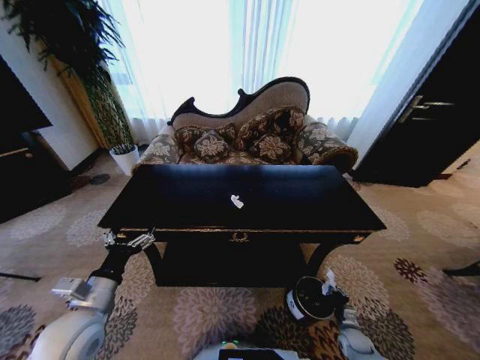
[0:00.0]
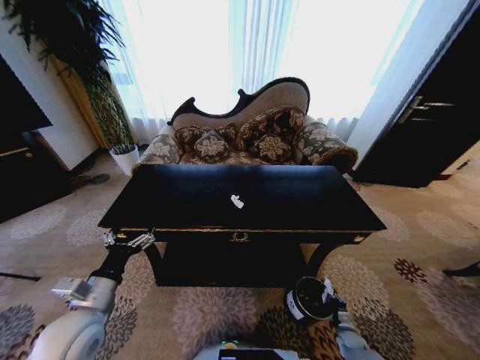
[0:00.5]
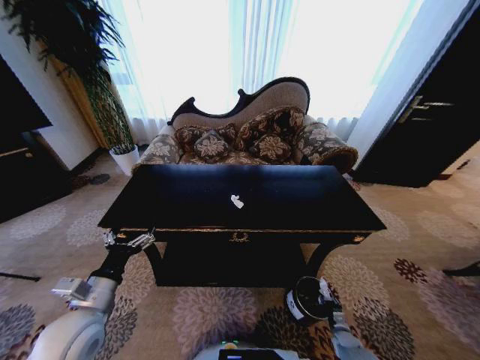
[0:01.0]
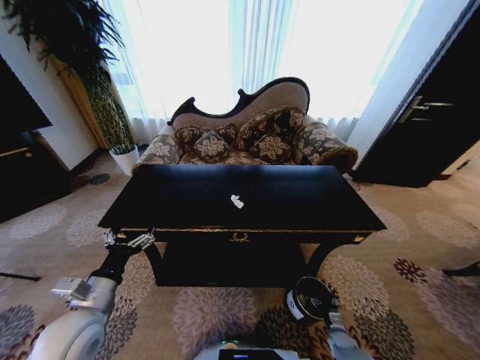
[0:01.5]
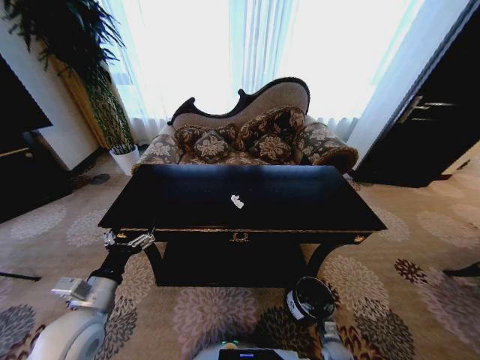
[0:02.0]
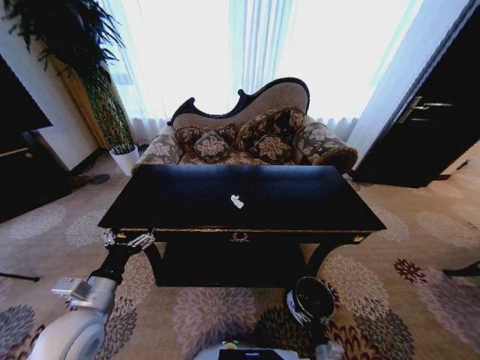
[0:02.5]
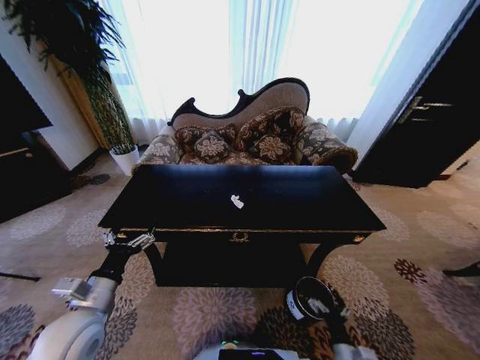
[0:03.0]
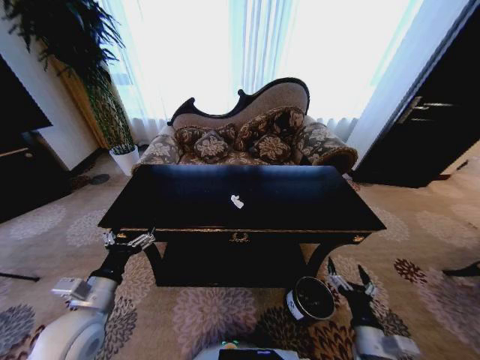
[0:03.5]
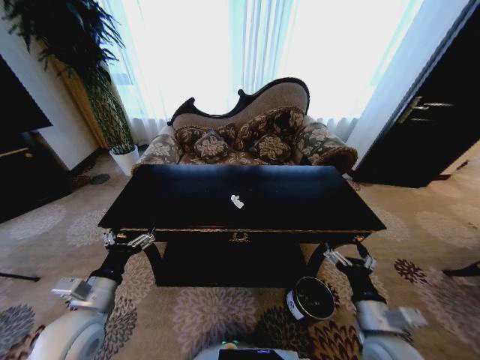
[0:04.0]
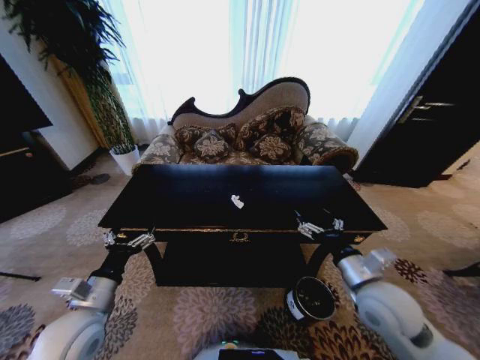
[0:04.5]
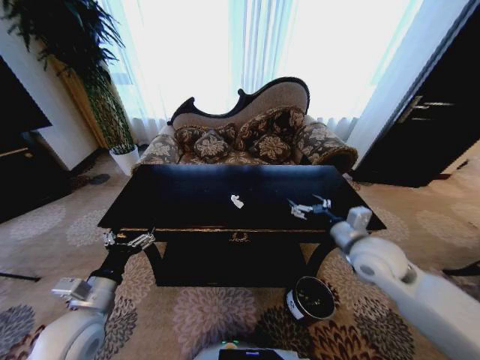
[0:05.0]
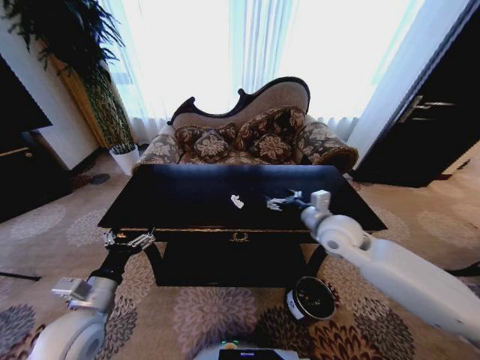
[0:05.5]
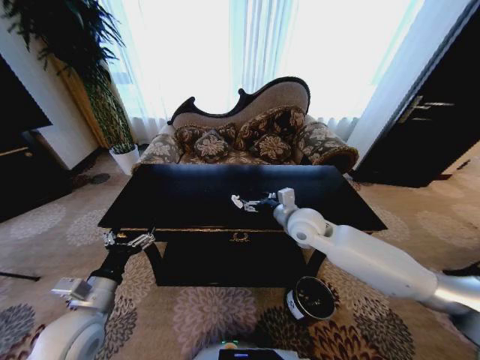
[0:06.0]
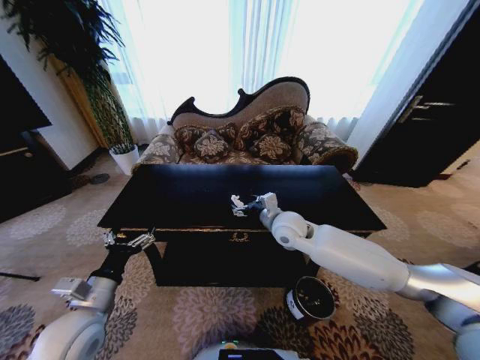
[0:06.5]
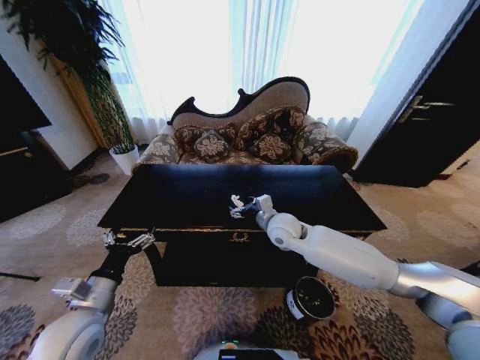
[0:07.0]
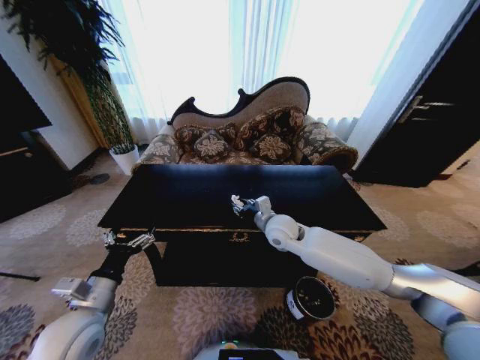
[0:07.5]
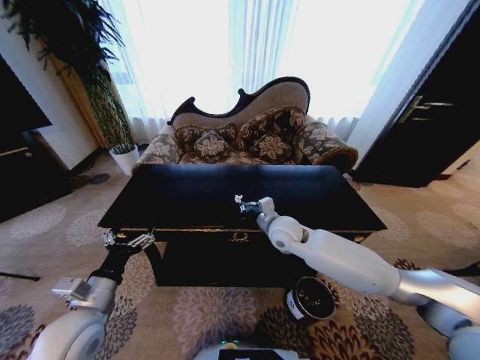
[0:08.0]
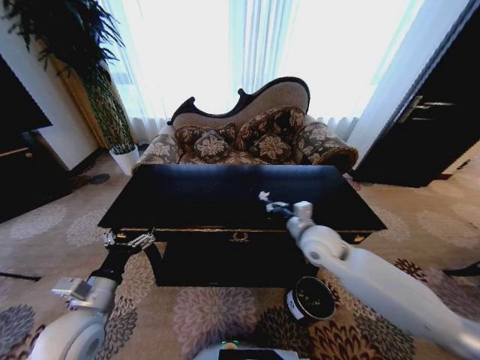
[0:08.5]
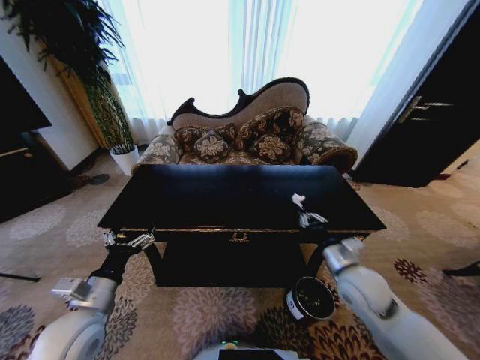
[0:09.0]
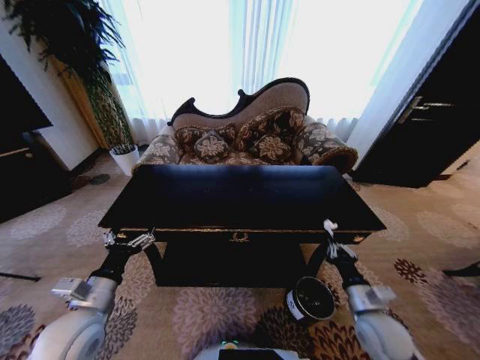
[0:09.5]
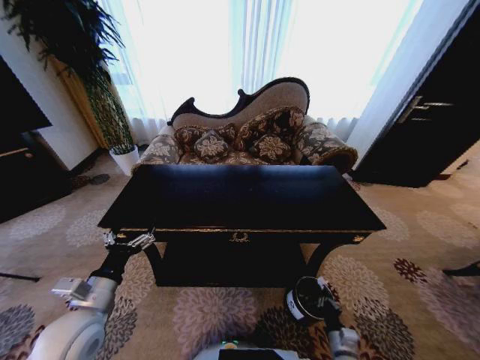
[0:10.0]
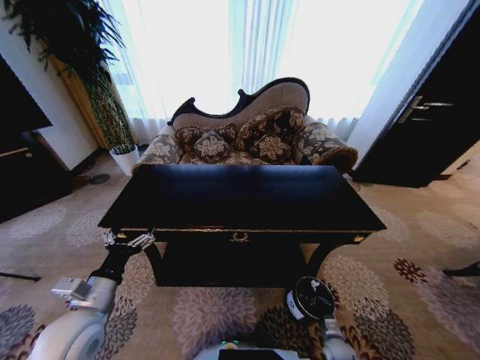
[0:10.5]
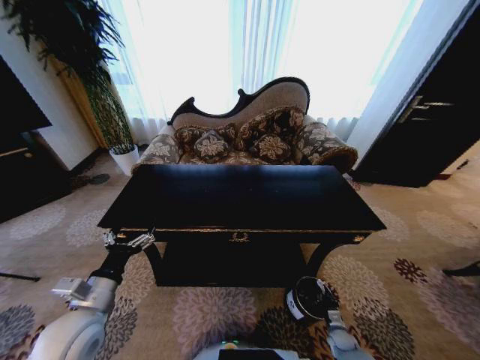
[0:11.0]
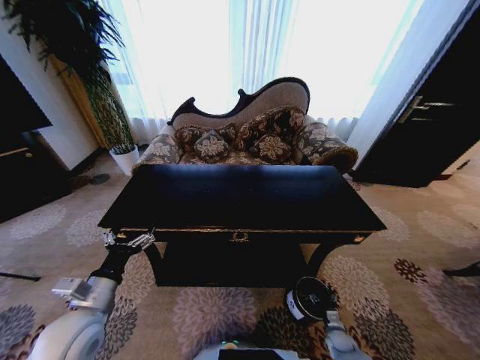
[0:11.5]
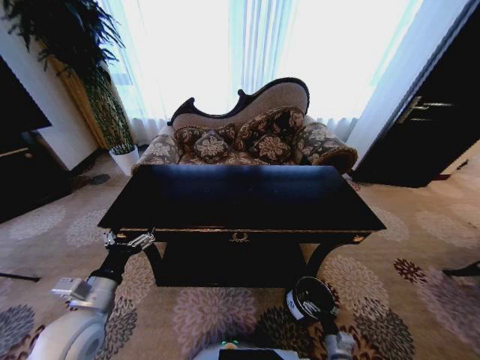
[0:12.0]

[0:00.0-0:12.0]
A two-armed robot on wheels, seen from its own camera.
Task of the whole recording: Move to the front of the table and place the trash on the table into the trash bin.
0:00.0 to 0:02.0: The right gripper is displaced downward and to the left by some 10 cm, and opens.
0:02.0 to 0:04.0: The right gripper travels upward by roughly 35 cm.
0:04.0 to 0:06.0: The right gripper heads forward, to the left and upward, covering approximately 30 cm.
0:06.0 to 0:08.0: The right gripper ends up about 5 cm from where it was, and closes.
0:08.0 to 0:10.0: The right gripper moves downward, backward and to the right, about 50 cm.

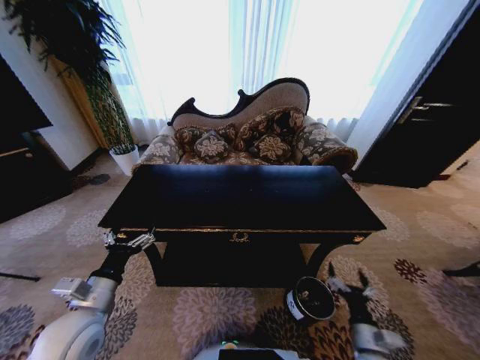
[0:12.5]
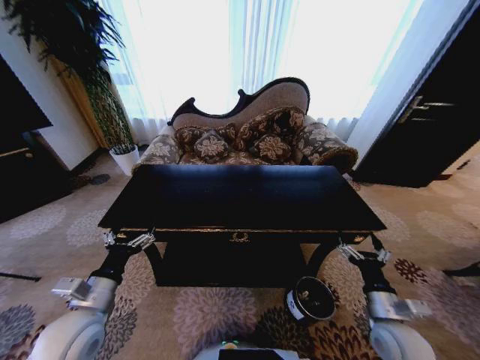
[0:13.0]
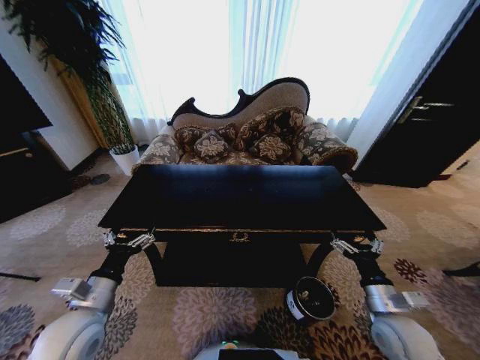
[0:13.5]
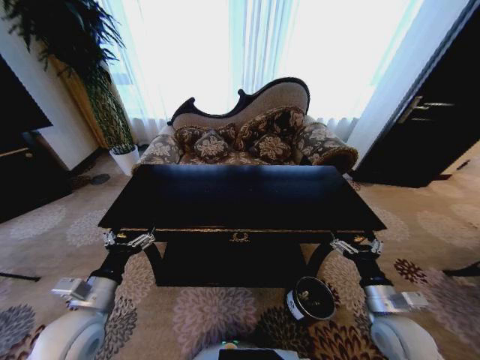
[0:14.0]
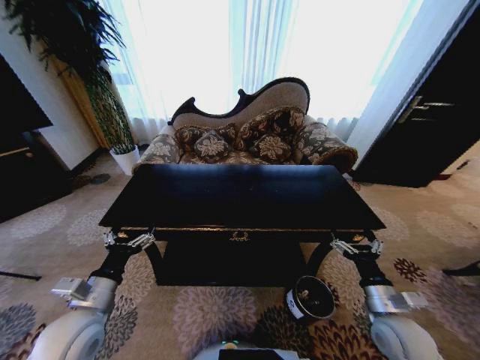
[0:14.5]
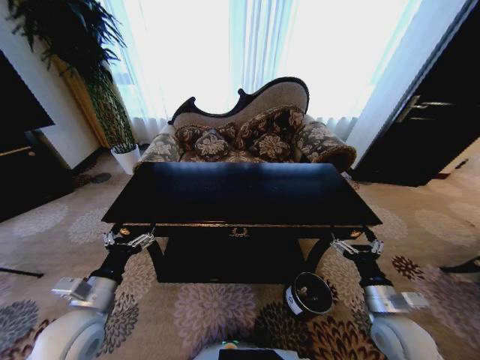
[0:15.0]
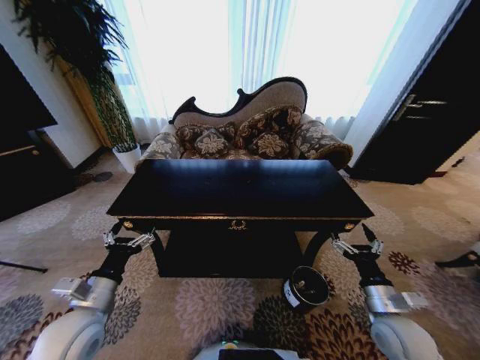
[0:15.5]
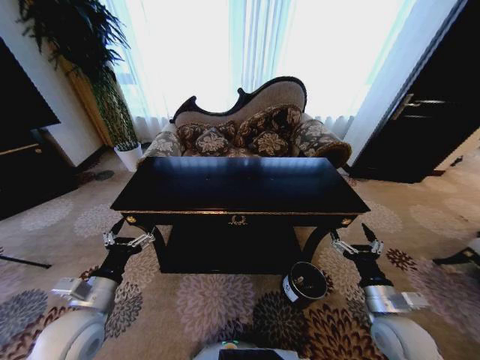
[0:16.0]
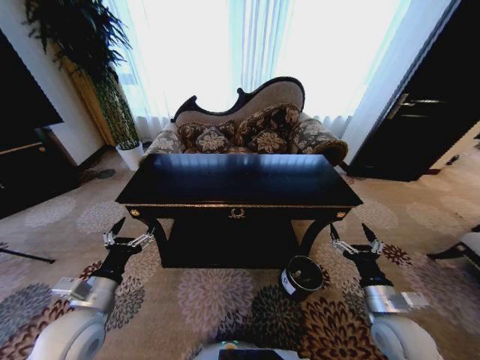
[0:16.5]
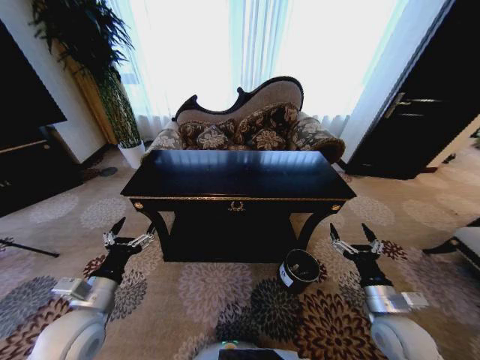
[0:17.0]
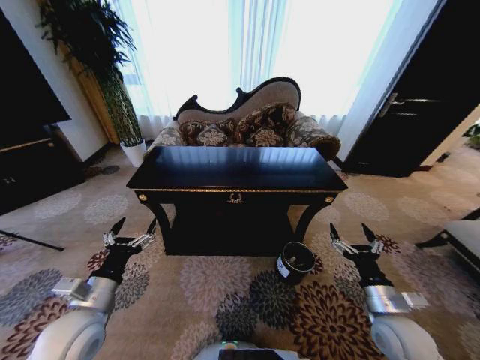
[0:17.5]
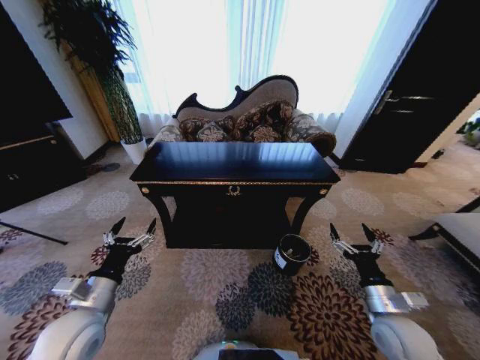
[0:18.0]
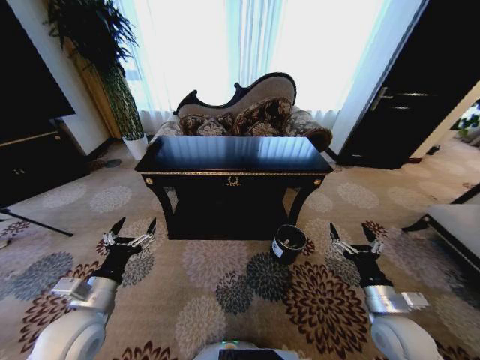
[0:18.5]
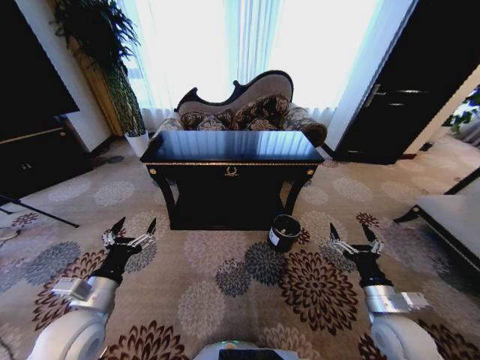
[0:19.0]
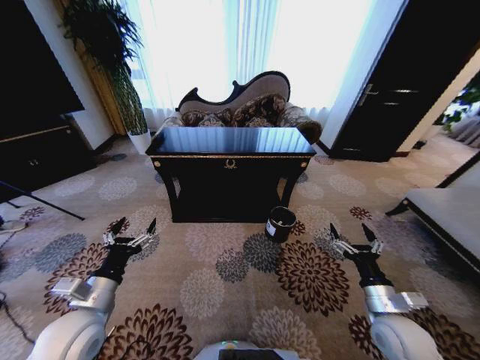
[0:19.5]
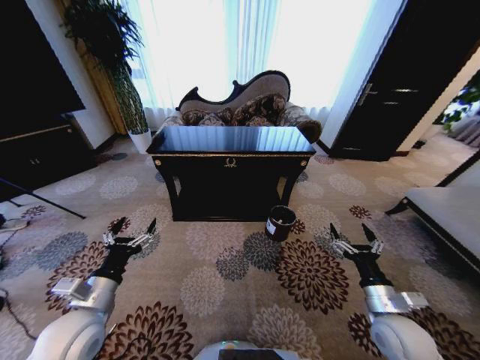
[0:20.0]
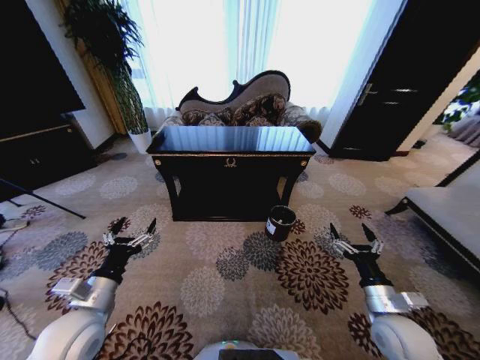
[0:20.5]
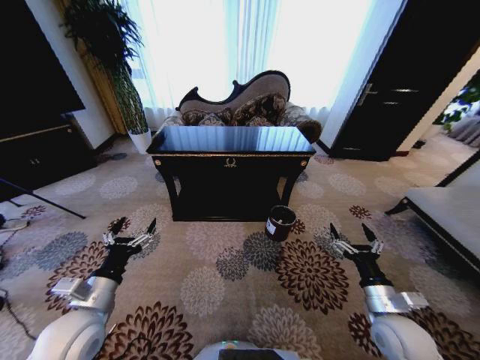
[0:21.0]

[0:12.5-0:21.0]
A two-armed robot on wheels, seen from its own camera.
Task of the whole recording: Move to the front of the table and place the trash on the table into the trash bin.
0:12.5 to 0:14.5: The right gripper heads upward and forward, covering some 15 cm.

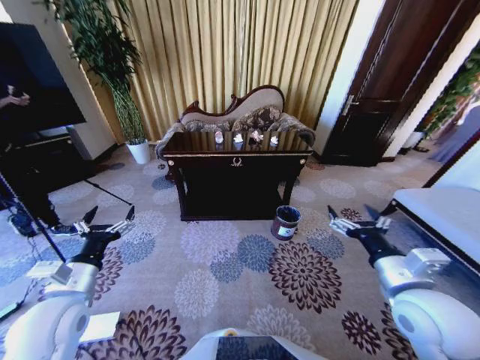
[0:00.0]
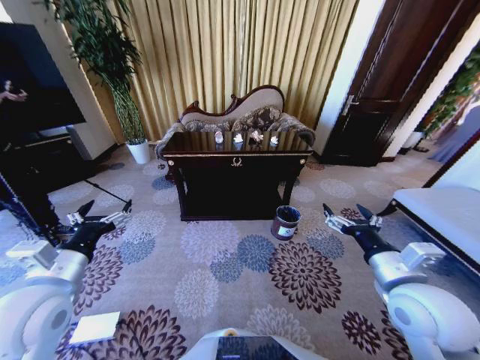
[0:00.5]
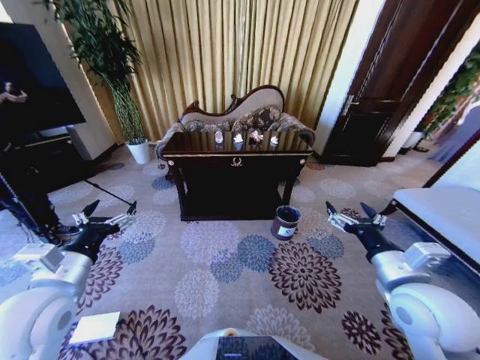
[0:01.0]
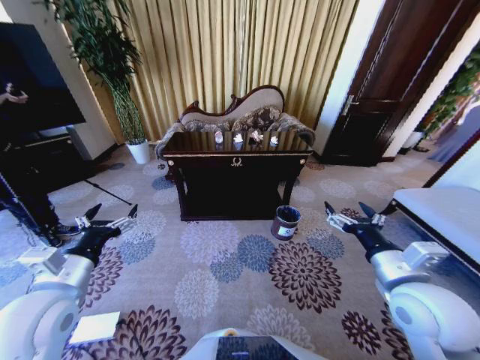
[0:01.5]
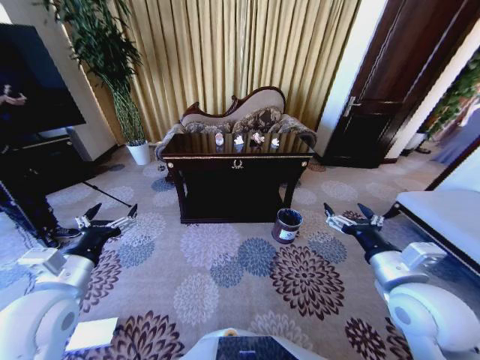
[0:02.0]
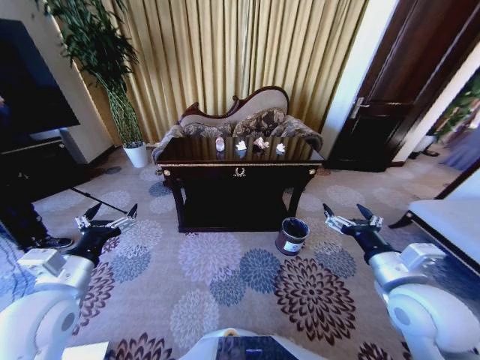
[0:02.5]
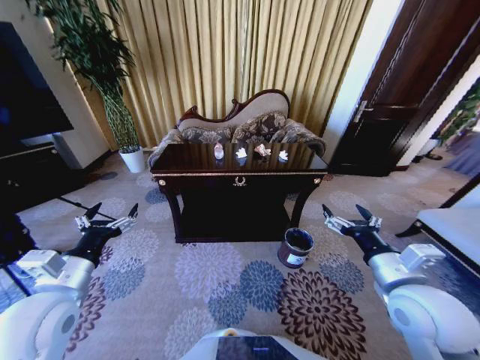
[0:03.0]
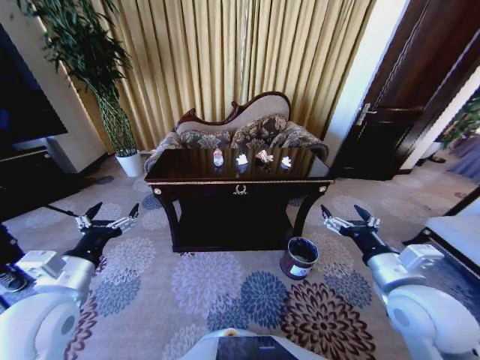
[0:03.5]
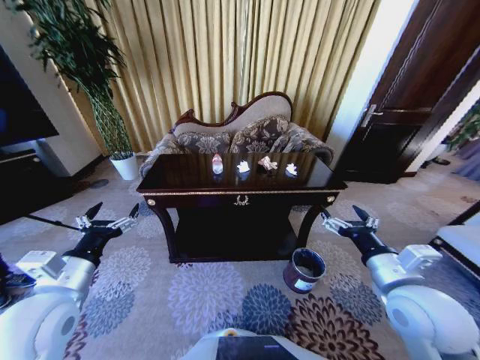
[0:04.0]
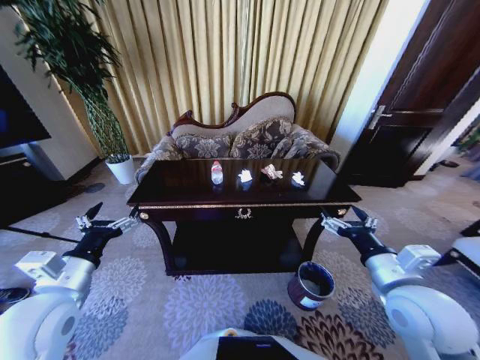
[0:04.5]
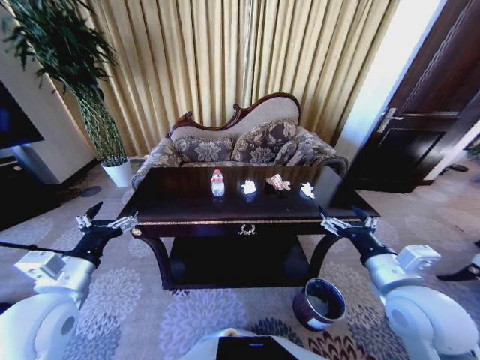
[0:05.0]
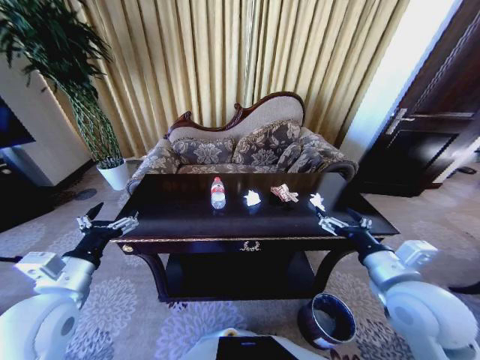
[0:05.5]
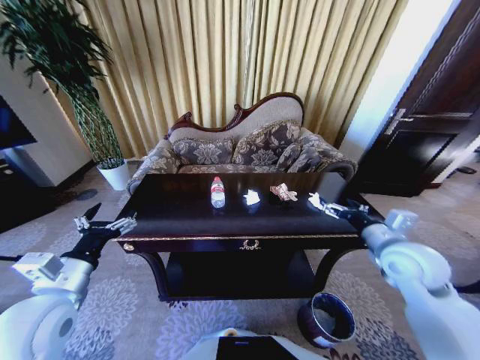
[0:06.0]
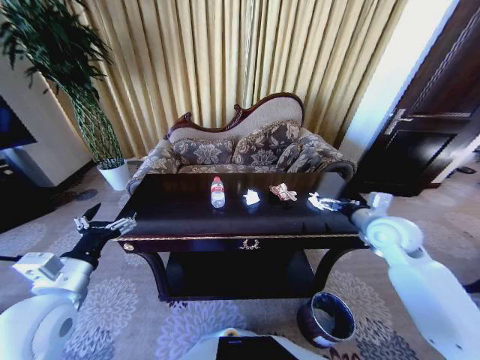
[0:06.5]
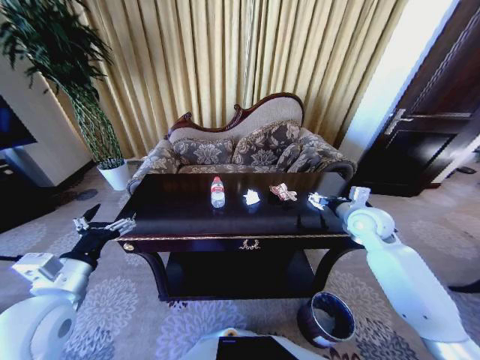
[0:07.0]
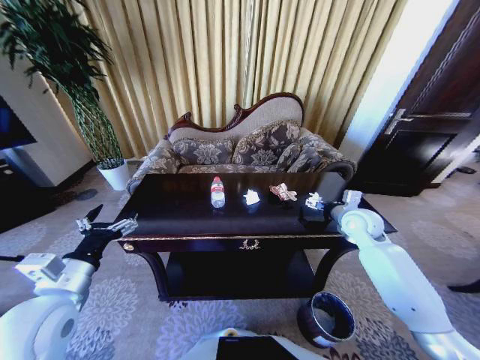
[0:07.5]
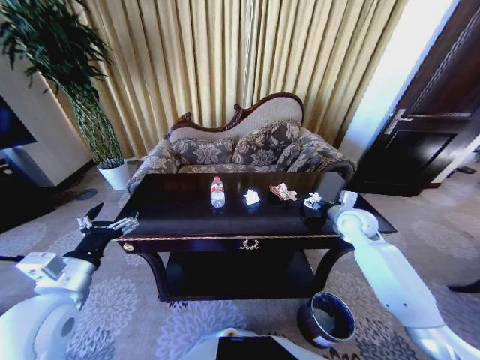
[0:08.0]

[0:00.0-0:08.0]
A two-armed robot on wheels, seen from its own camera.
Task of the whole recording: Move to the front of the table and place the trash on the table into the trash bin.
0:04.0 to 0:06.0: The right gripper shifts approximately 10 cm forward and to the right.
0:06.0 to 0:08.0: The right gripper heads forward, covering approximately 15 cm.
